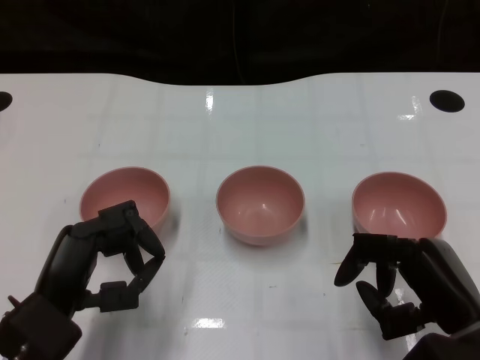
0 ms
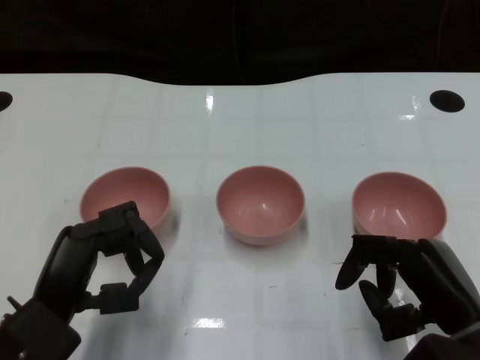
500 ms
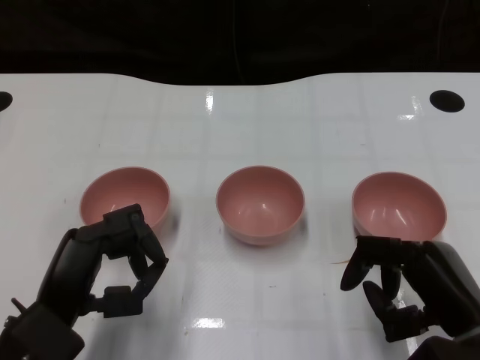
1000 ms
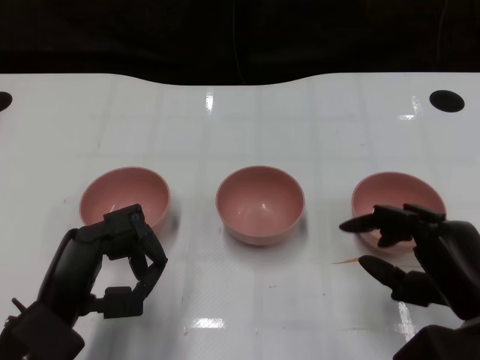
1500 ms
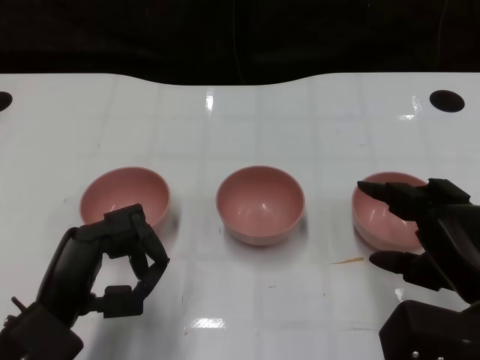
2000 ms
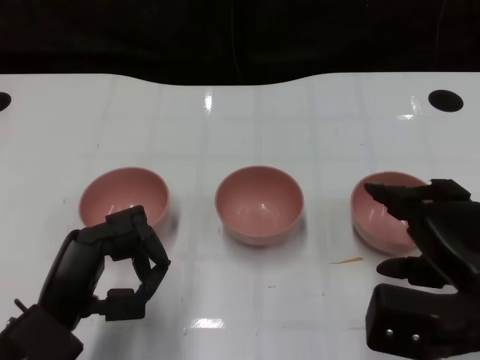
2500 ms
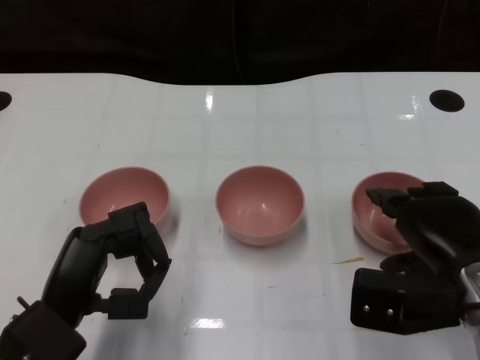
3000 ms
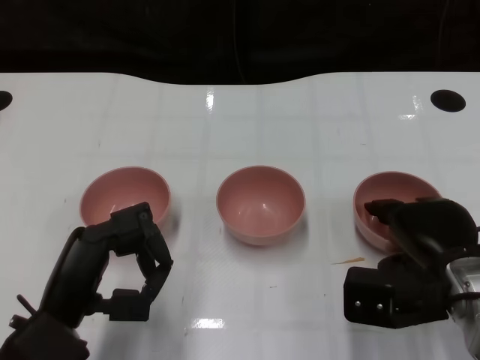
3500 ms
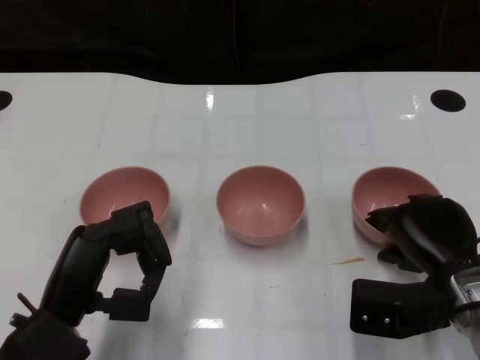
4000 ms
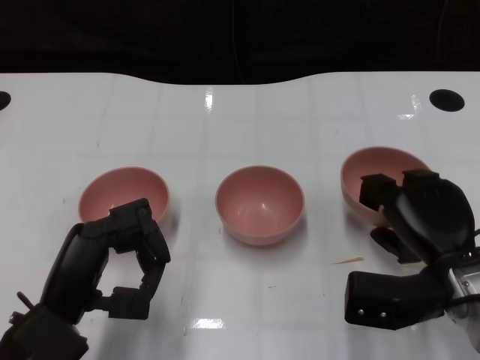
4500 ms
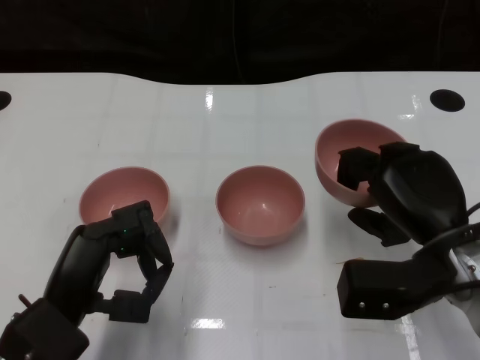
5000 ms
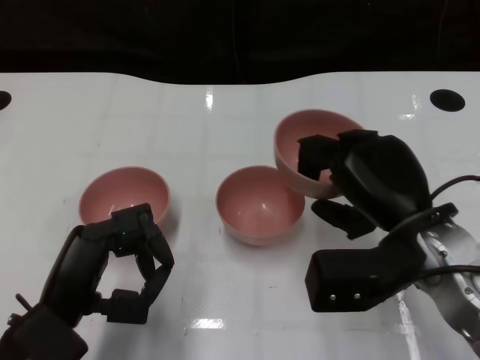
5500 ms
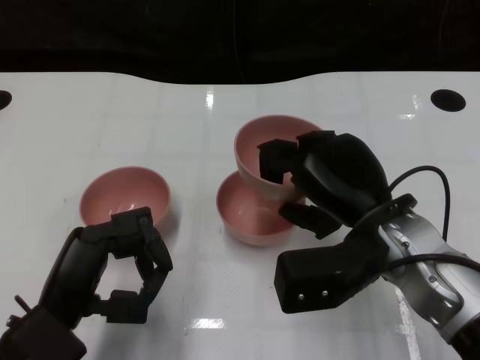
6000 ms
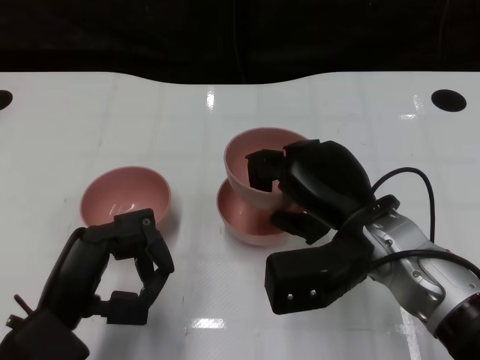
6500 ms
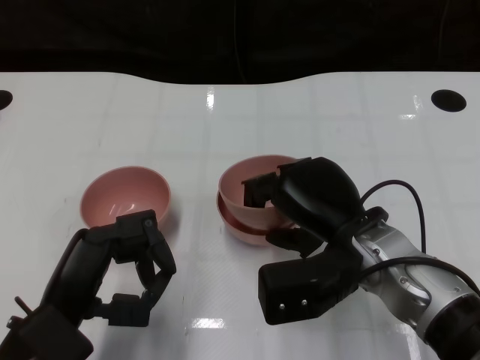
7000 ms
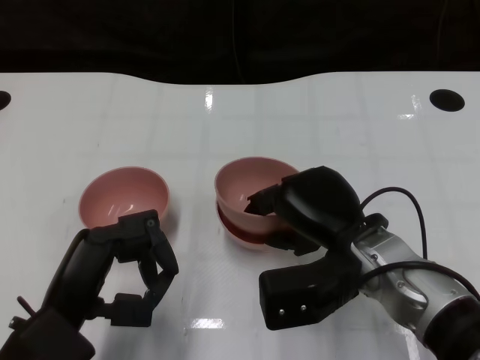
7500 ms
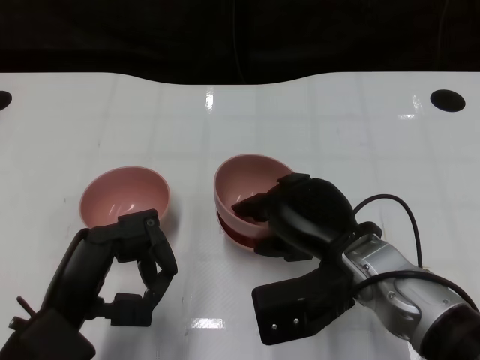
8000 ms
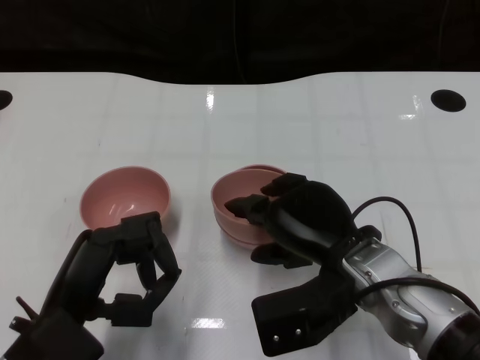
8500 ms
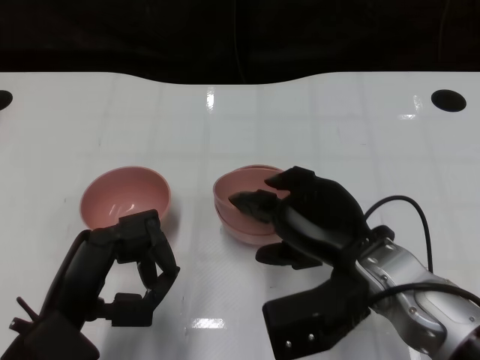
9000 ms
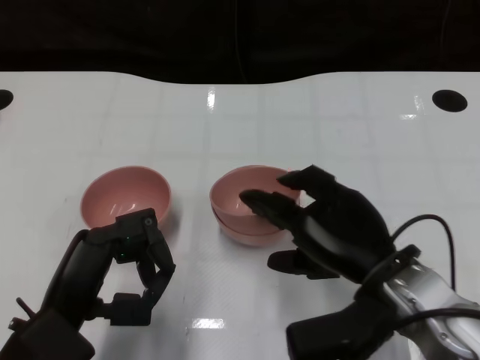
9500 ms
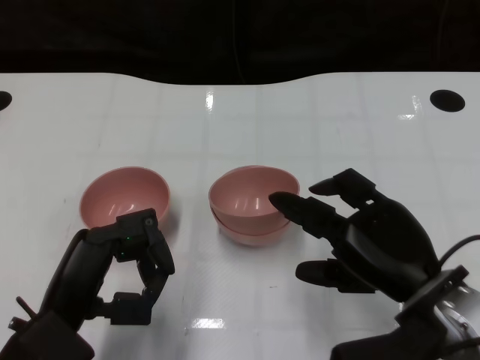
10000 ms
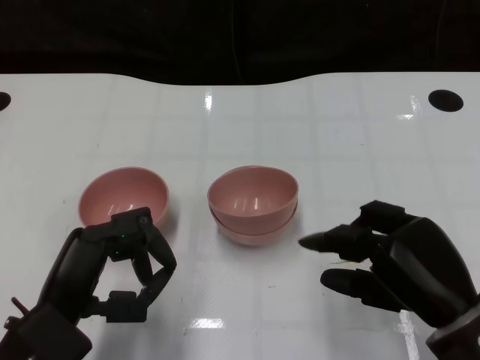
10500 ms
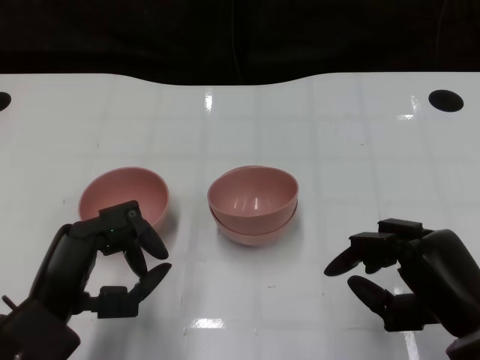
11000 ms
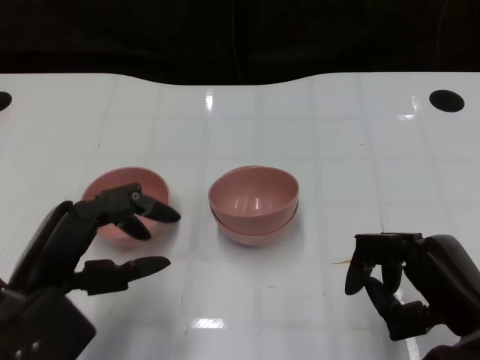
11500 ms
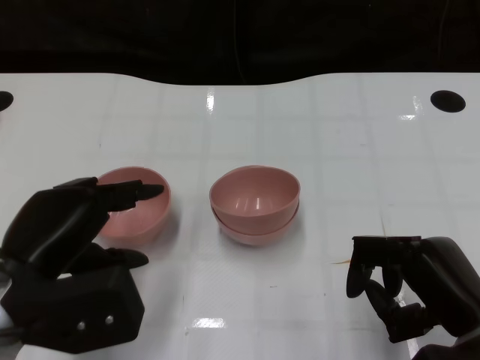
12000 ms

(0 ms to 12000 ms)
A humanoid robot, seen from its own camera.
Task of the whole recording: Pick up the bowl on one side of the table and place it on top of the middle bowl, then pick up the bowl on the other side of the table and place it on top of the middle bowls.
Step, 1500 ms - 4000 ms: Grasp the bowl on the right with the right gripper.
Step, 5000 ms - 7500 ms: Place the bowl on the right onto the bowl in the middle with right gripper.
2000 ms - 4000 ms: The right hand travels forward and downward by about 10 cm.
4000 ms - 6000 ms: The right hand is displaced to the left and upward by some 10 cm.
8000 ms - 10000 ms: The right hand moves to the right and backward, some 10 cm.
10000 ms - 12000 ms: The left hand shifts about 5 cm upward, while the right hand ends up some 5 cm from where it was.

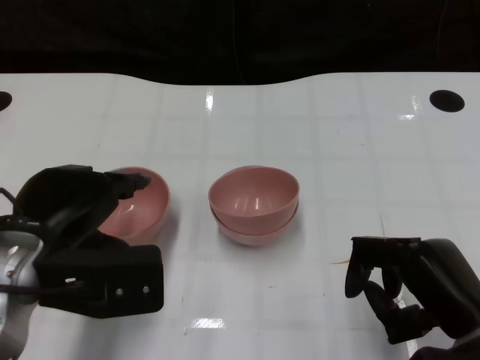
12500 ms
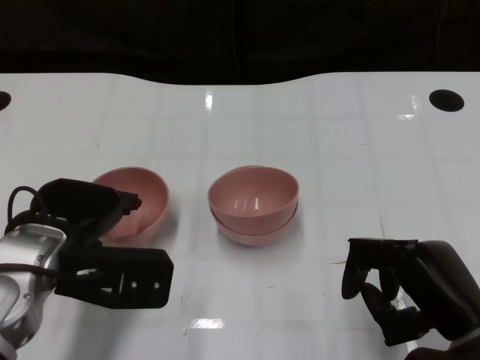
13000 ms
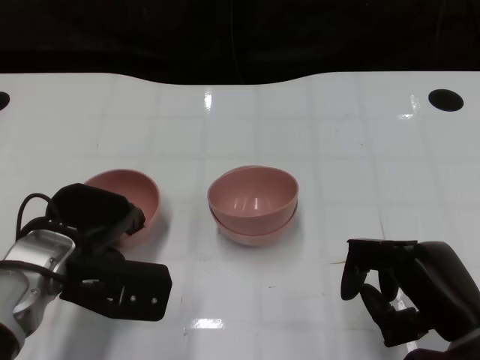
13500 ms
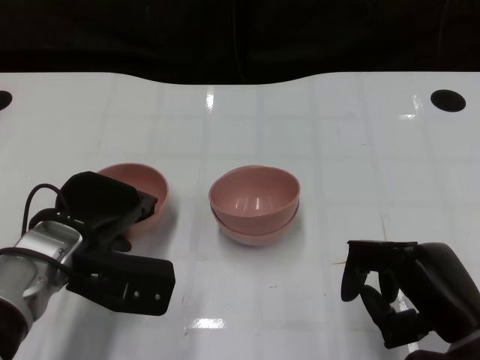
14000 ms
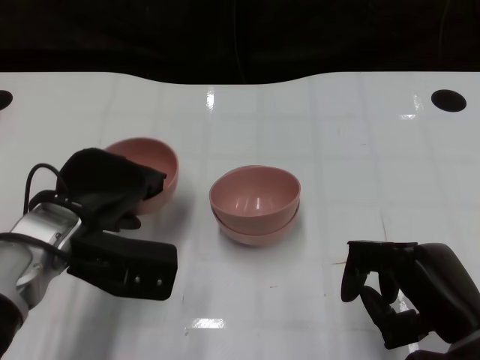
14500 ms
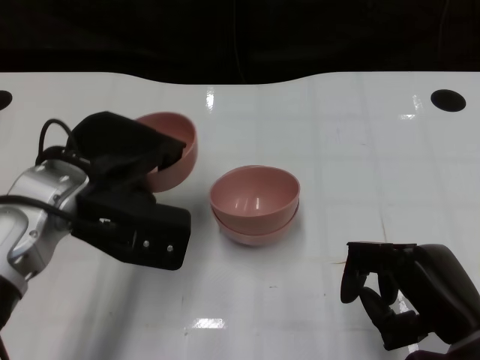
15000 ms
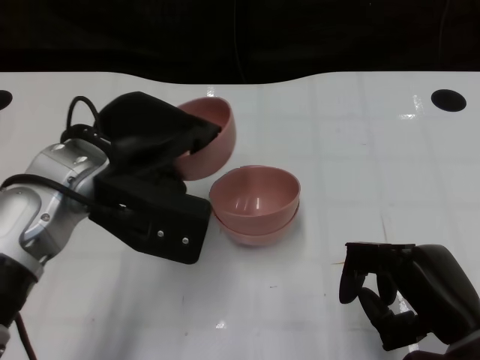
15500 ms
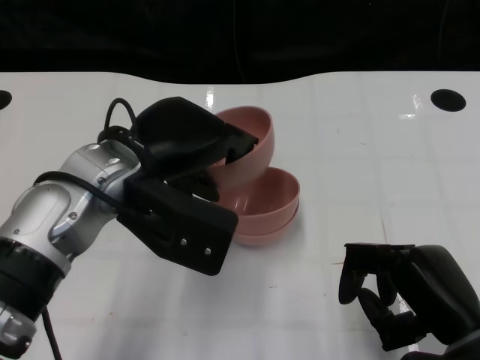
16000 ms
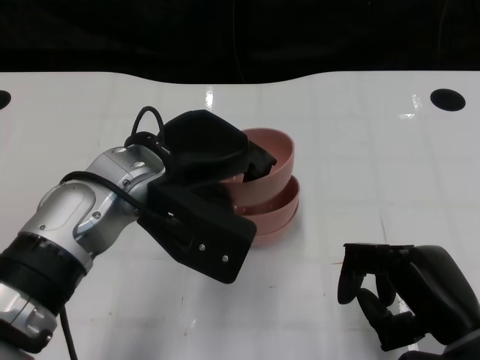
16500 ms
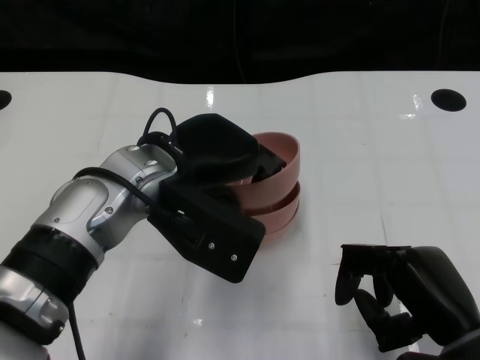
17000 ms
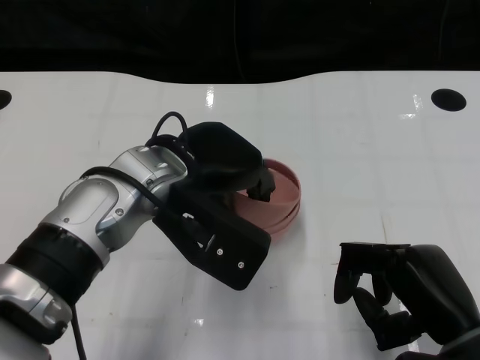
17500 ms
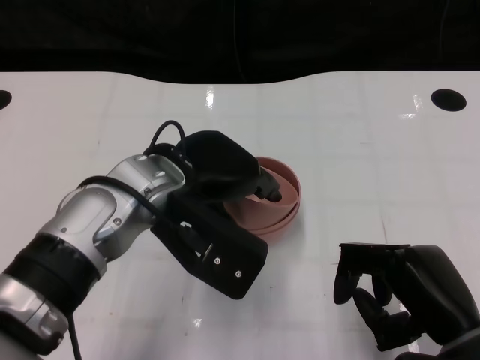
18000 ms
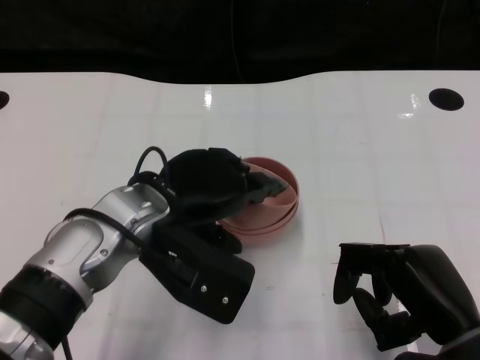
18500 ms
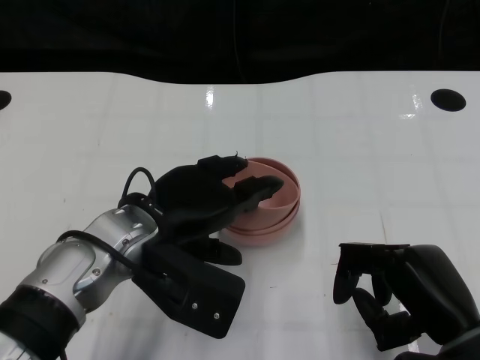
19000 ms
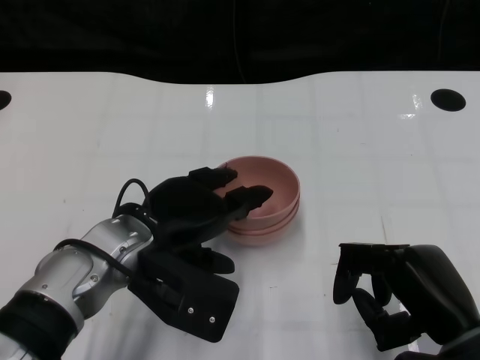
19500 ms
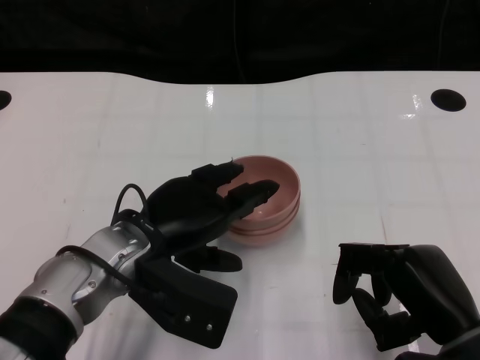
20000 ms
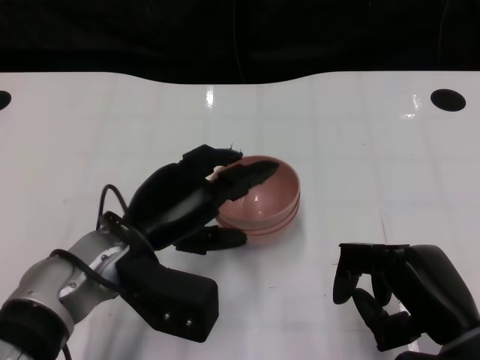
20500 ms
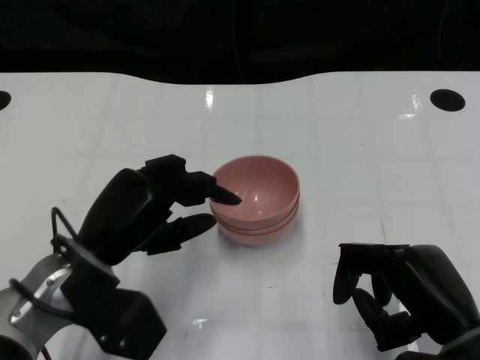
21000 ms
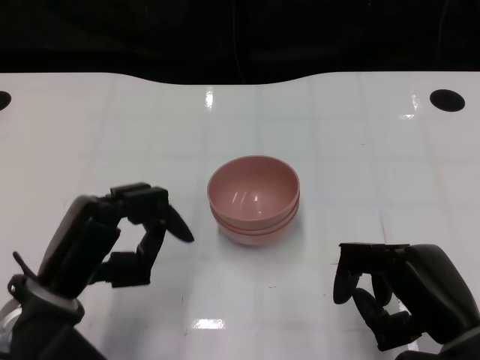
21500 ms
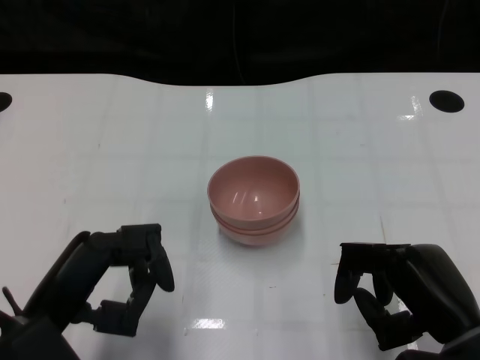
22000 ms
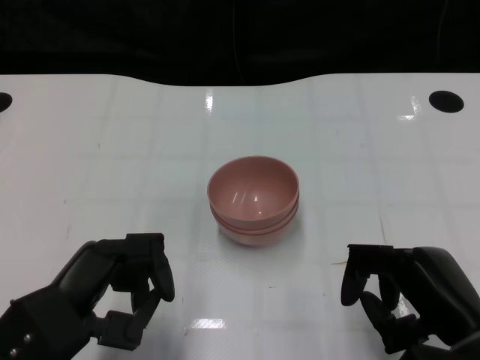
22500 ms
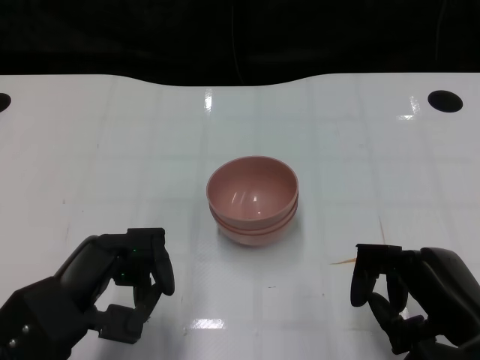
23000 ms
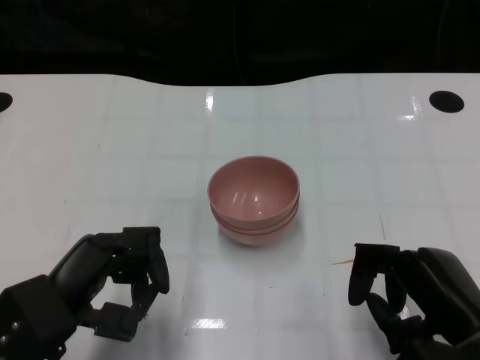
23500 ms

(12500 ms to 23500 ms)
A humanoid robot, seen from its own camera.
Task of the whole recording: Pick up the bowl on one side of the table and place it on top of the middle bowl, then pick up the bowl on the other side of the table and place it on top of the middle bowls.
Step, 14500 ms - 20500 ms: Place the bowl on the left onto the bowl in the middle with left gripper.
12500 ms - 14500 ms: The left hand moves forward, about 5 cm.
14500 ms - 16000 ms: The left hand heads upward and to the right, covering some 10 cm.
18000 ms - 20000 ms: The left hand travels downward by roughly 5 cm.
20000 ms - 21500 ms: The left hand moves to the left and backward, roughly 10 cm.

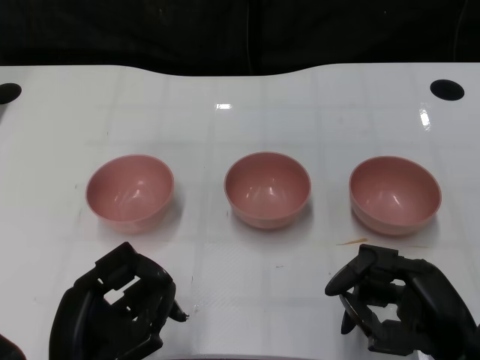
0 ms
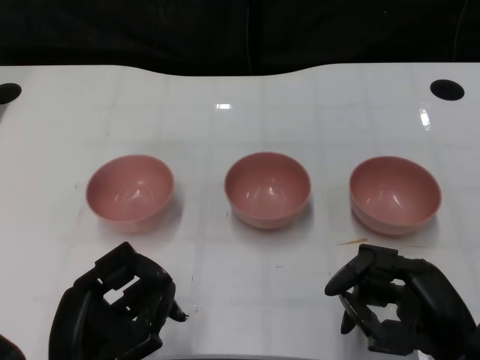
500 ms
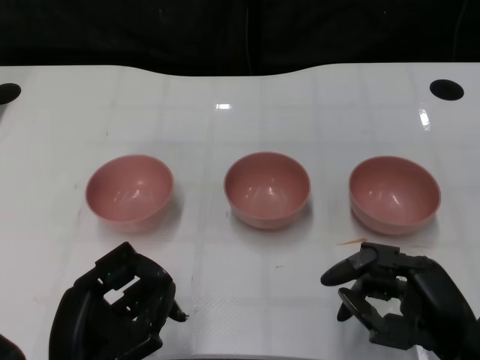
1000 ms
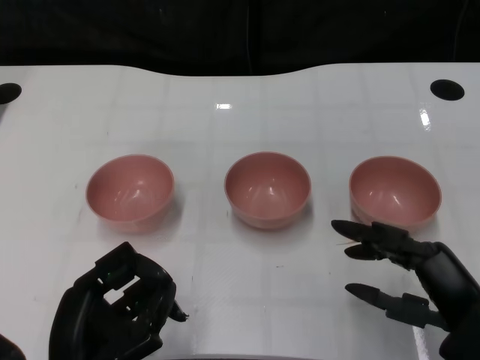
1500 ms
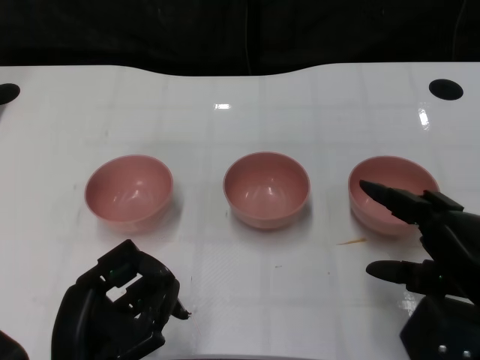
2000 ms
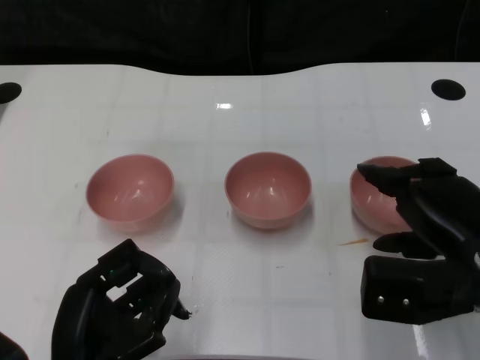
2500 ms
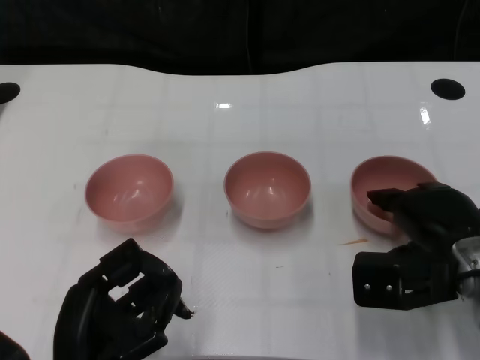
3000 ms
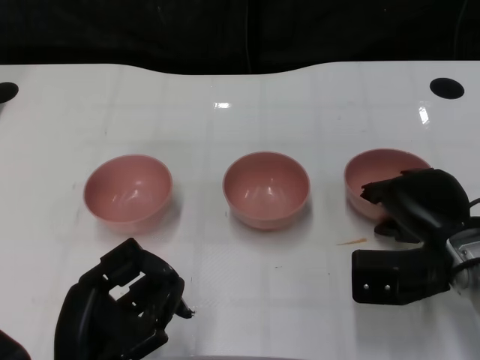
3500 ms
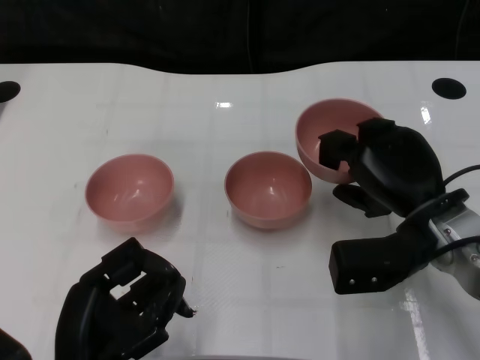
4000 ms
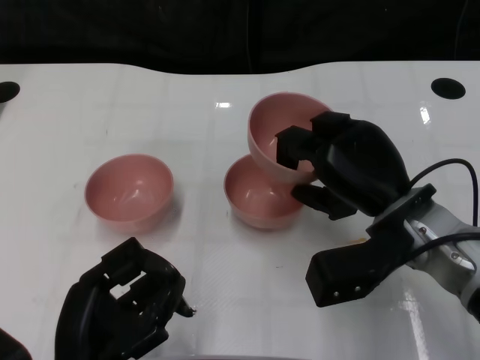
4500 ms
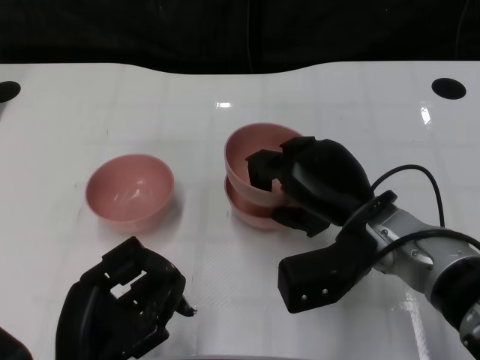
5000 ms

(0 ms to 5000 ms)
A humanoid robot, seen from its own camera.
Task of the whole recording: Pick up the bowl on one side of the table and place it on top of the middle bowl, then pick up the bowl on the other side of the table and place it on top of the middle bowls.
Step, 1000 ms - 3500 ms: Grasp the bowl on the right with the right gripper.
2500 ms - 5000 ms: The right hand shifts approximately 10 cm to the left and forward.
